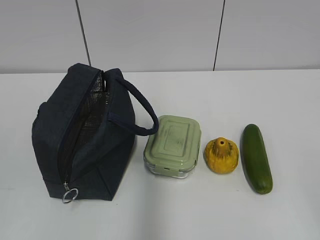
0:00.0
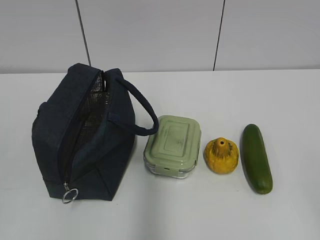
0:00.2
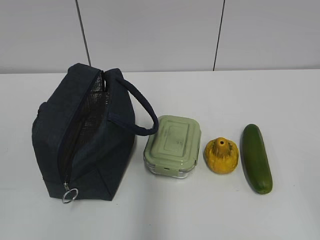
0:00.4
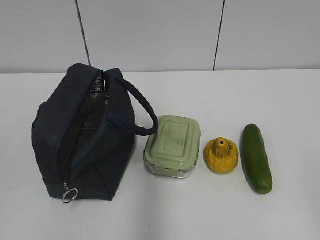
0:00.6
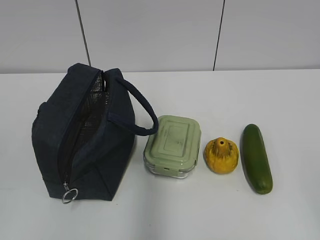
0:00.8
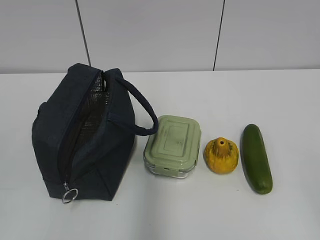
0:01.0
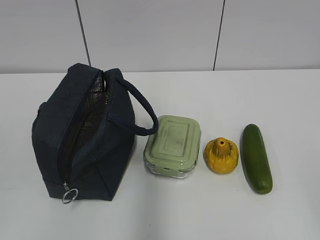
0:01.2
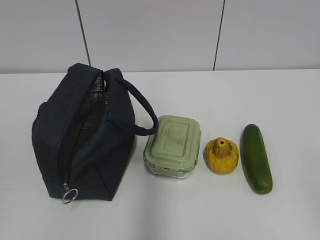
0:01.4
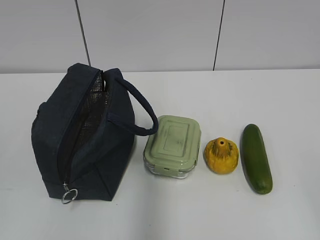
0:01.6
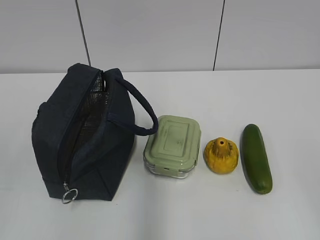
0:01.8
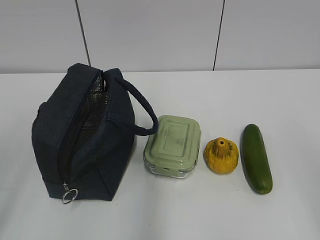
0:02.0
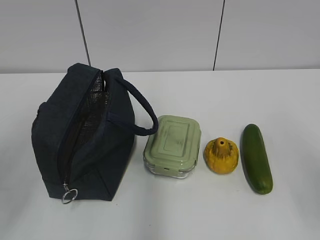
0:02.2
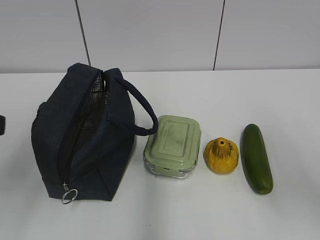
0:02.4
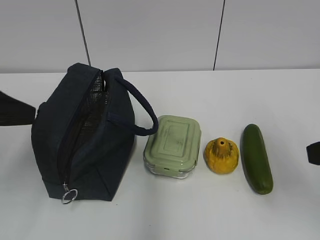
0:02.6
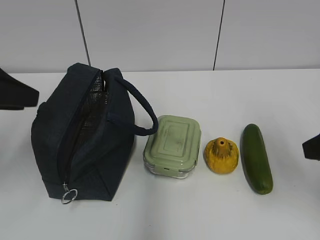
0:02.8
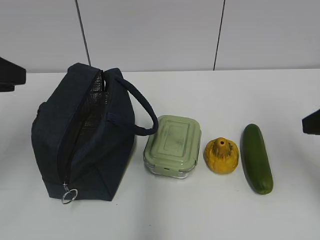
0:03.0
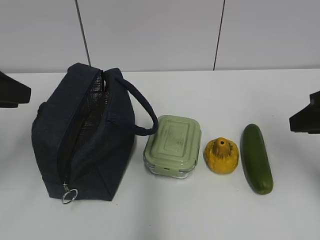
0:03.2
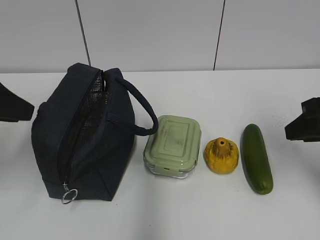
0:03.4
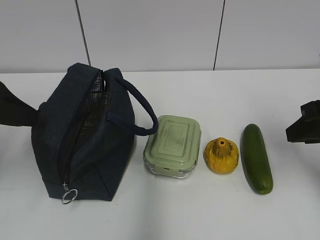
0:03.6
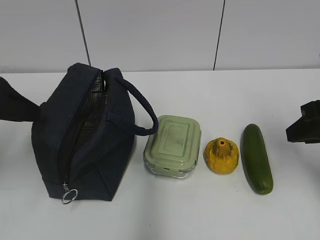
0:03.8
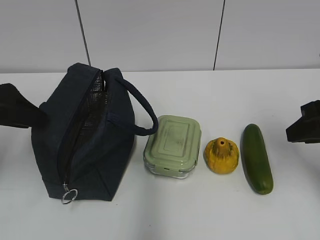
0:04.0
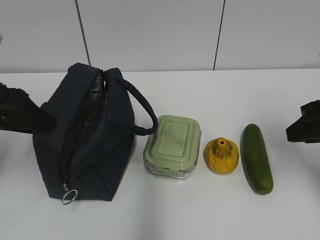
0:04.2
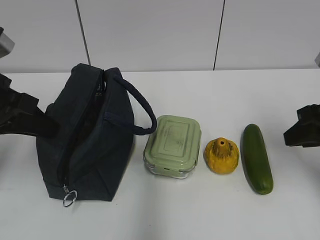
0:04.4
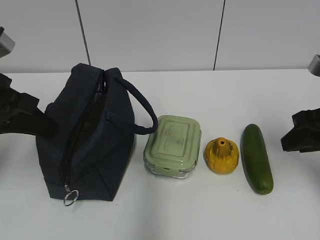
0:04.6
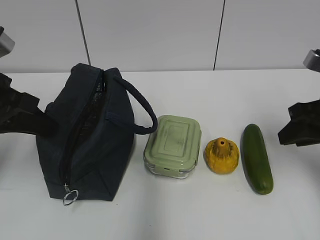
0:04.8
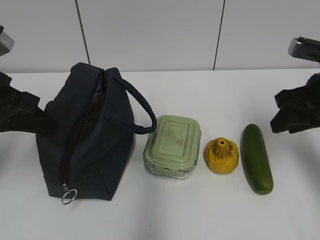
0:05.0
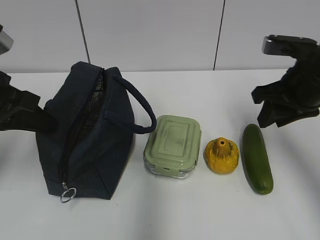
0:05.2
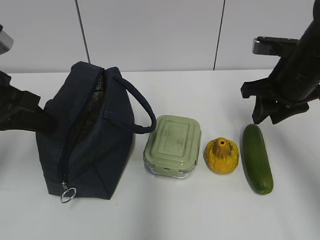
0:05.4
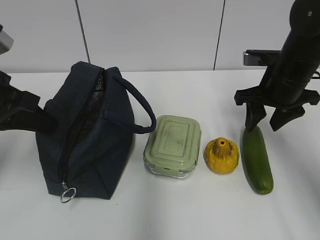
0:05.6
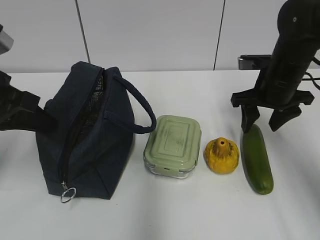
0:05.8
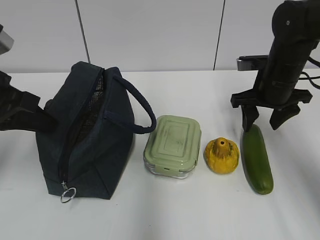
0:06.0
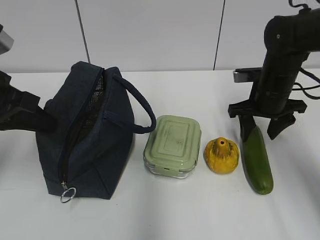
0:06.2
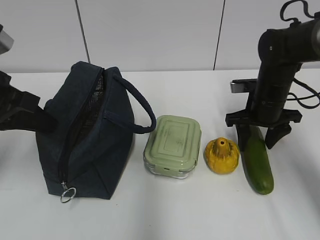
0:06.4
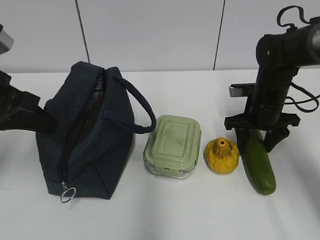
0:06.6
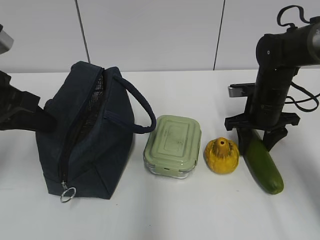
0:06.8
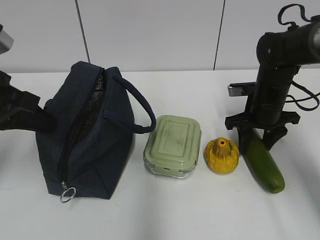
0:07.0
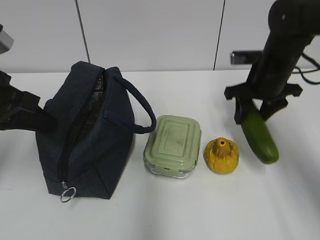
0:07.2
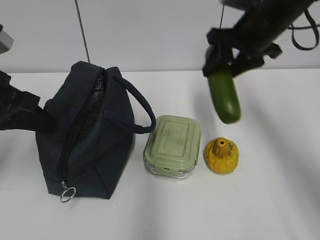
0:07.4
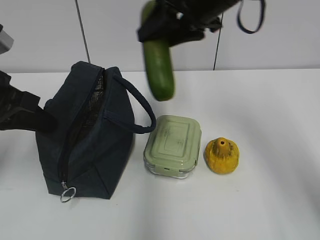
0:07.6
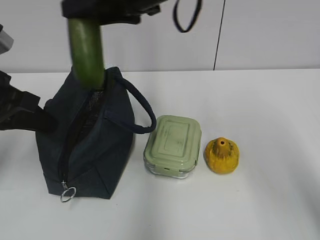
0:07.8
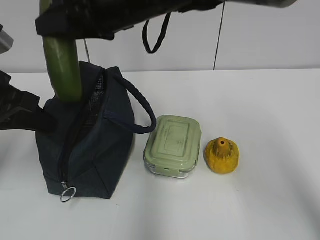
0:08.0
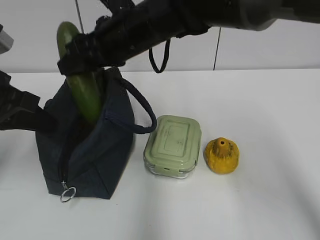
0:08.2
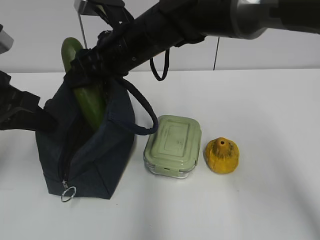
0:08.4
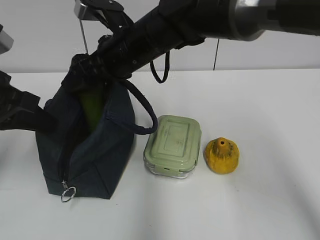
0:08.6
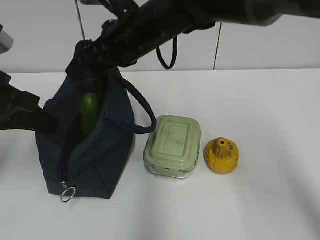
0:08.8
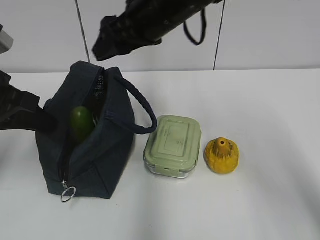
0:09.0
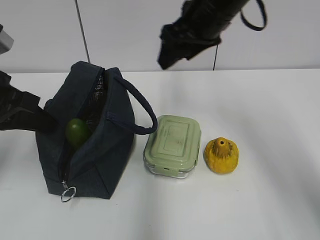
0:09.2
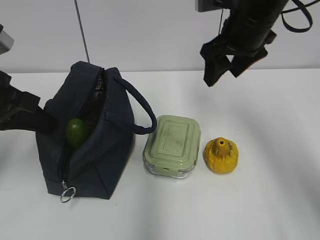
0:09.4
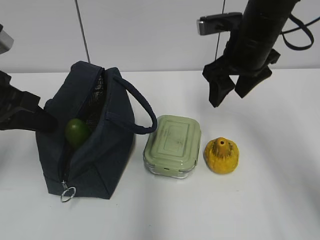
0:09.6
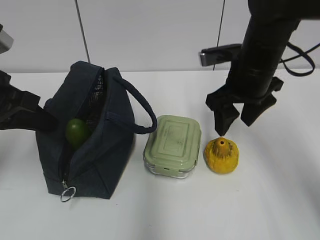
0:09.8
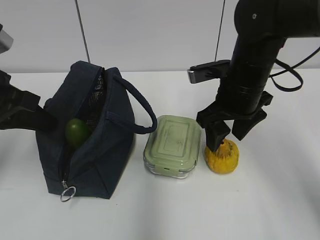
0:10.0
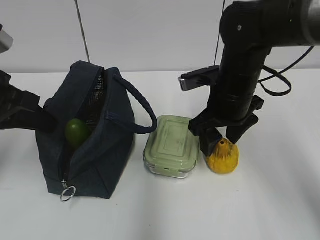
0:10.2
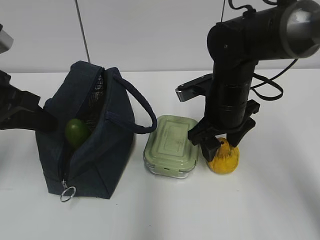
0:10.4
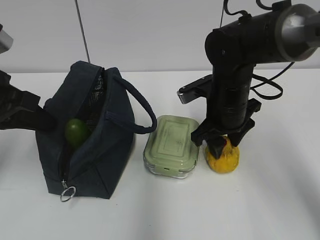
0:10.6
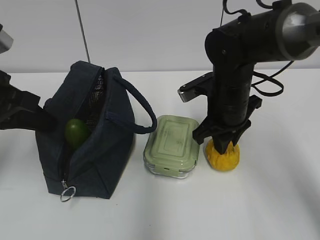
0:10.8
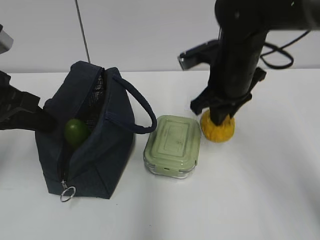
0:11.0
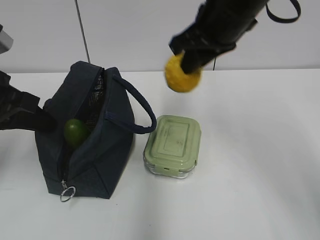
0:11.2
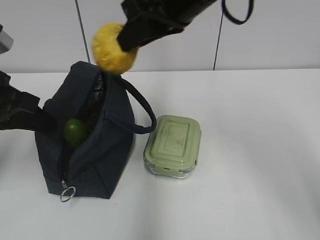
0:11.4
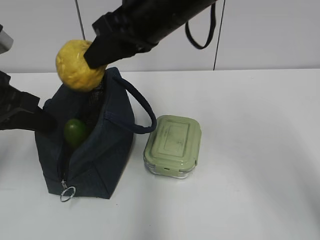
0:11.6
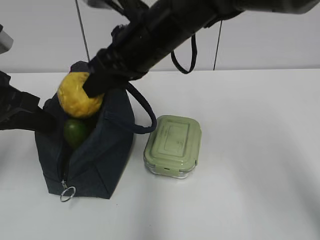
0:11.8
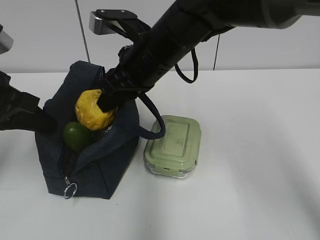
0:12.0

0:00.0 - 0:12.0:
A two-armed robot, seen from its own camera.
Step, 0:00.0 - 0:06.6: Grab the cucumber with your right hand.
Step, 0:08.2 - 0:08.8: Place it into the bag with your right hand.
Step, 0:09.0 - 0:10.6: Grab the pear with your right hand.
0:01.6 - 0:03.0: Both grippers move forward, approximately 25 cm.
0:03.0 - 0:04.4: The left gripper travels downward by some 5 cm, and closes, while the right gripper shifts by about 5 cm.
0:04.4 - 0:06.0: The right gripper is displaced forward by some 15 cm, and opens.
0:06.0 - 0:07.6: The right gripper travels upward and to the left by approximately 20 cm.
0:09.0 - 0:10.4: The right gripper moves downward and to the right, roughly 15 cm.
0:10.4 - 0:12.0: The right gripper moves to the left and upward, about 15 cm, and closes up.

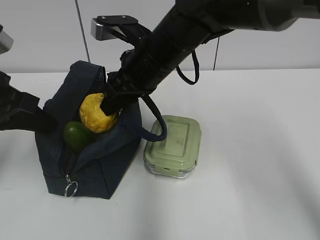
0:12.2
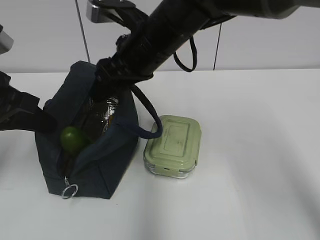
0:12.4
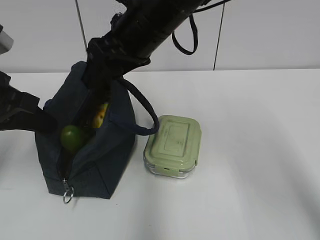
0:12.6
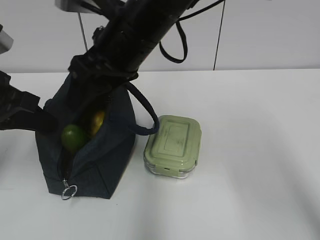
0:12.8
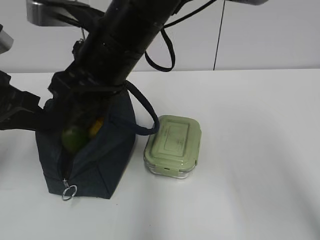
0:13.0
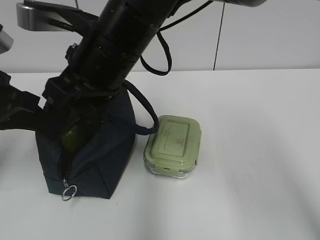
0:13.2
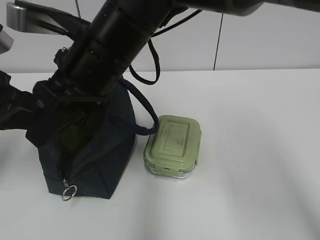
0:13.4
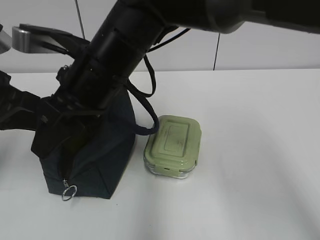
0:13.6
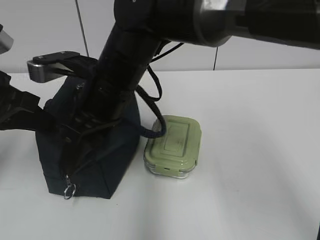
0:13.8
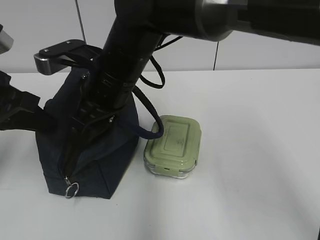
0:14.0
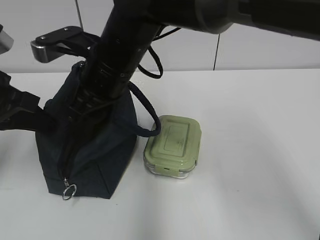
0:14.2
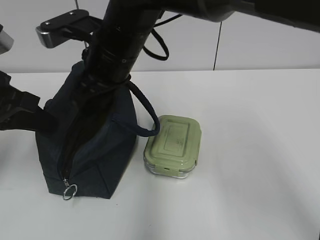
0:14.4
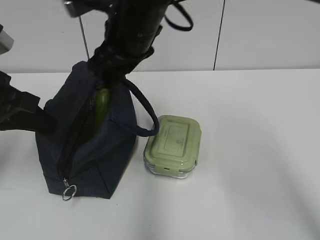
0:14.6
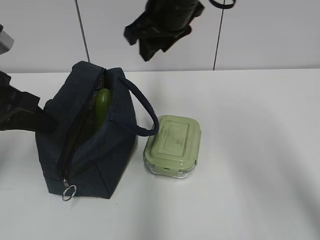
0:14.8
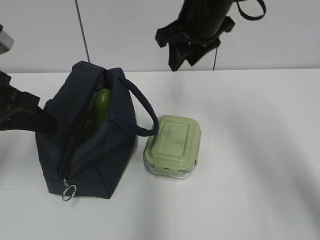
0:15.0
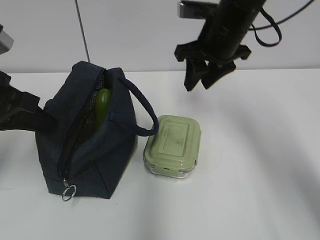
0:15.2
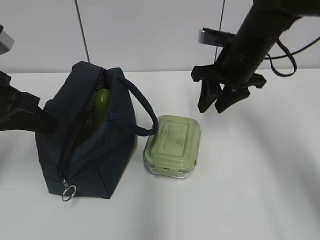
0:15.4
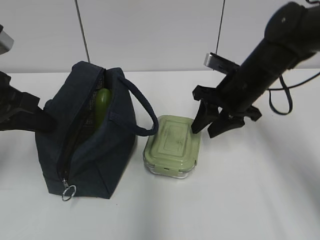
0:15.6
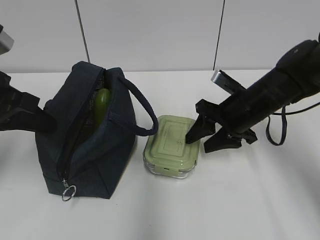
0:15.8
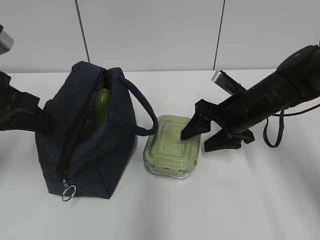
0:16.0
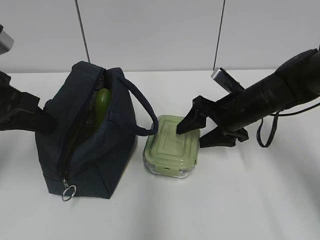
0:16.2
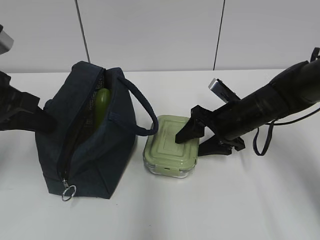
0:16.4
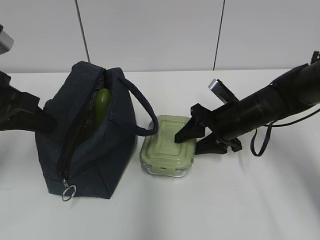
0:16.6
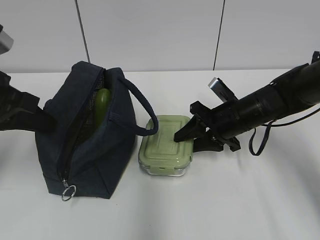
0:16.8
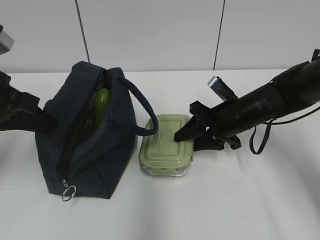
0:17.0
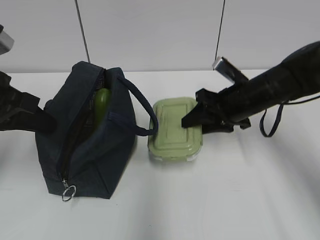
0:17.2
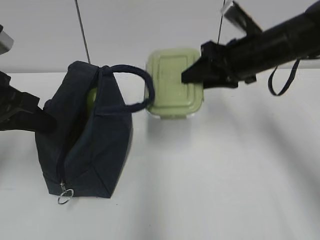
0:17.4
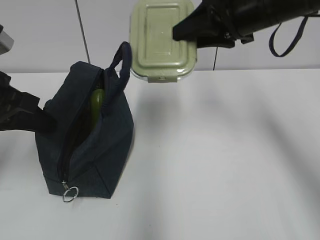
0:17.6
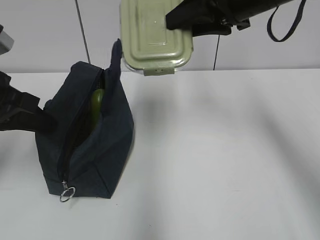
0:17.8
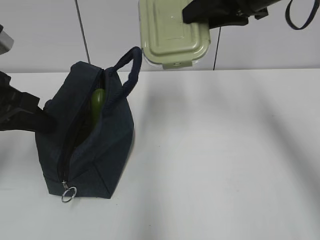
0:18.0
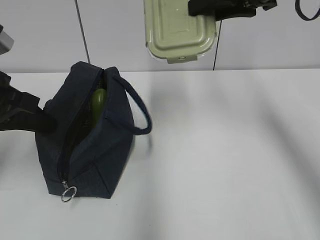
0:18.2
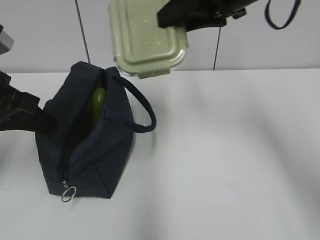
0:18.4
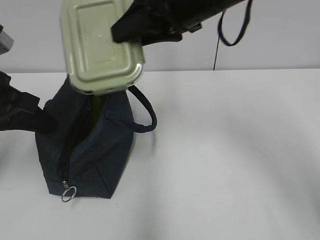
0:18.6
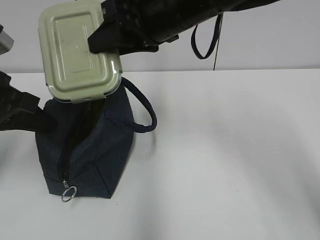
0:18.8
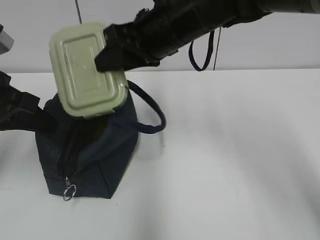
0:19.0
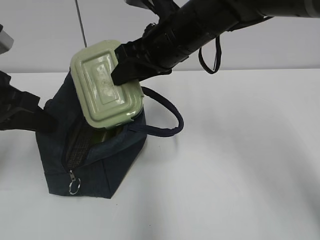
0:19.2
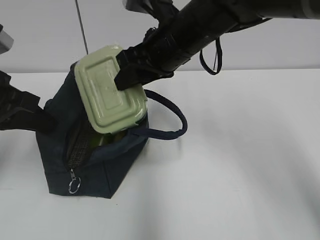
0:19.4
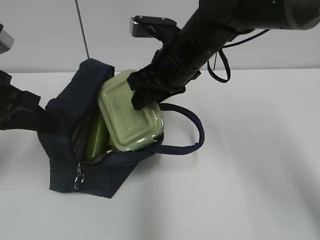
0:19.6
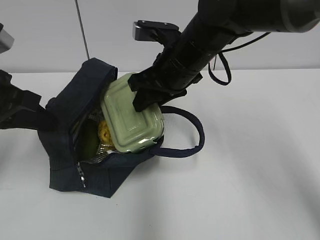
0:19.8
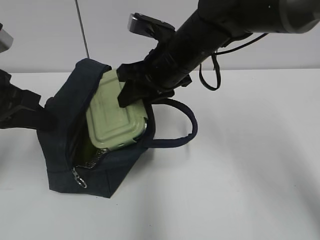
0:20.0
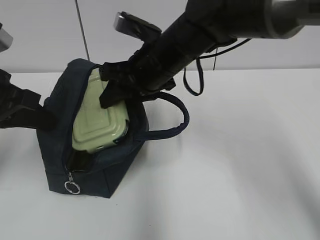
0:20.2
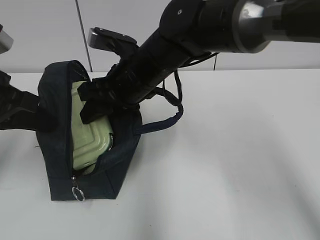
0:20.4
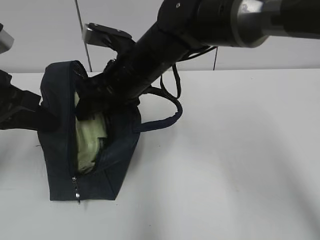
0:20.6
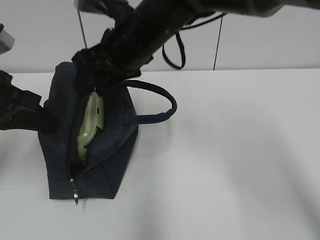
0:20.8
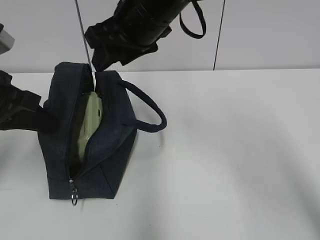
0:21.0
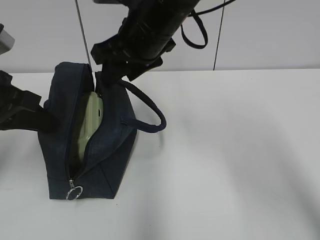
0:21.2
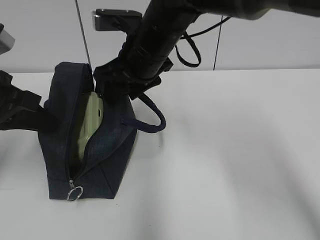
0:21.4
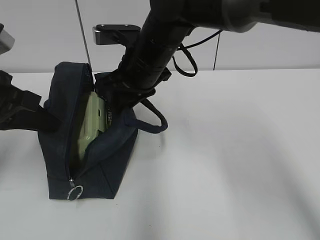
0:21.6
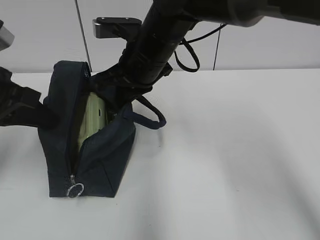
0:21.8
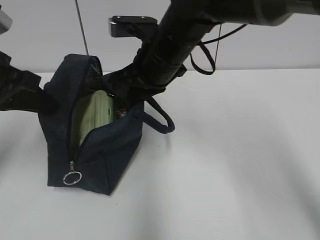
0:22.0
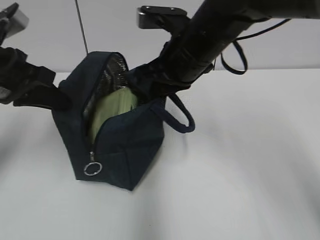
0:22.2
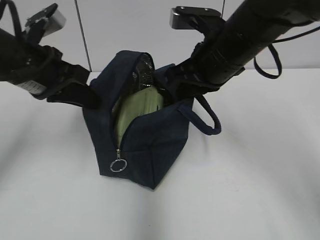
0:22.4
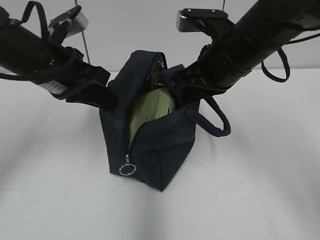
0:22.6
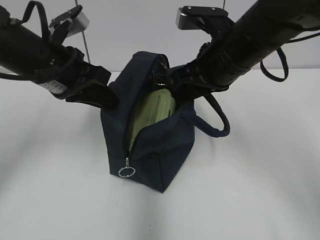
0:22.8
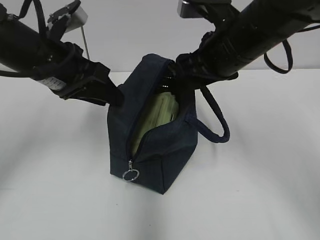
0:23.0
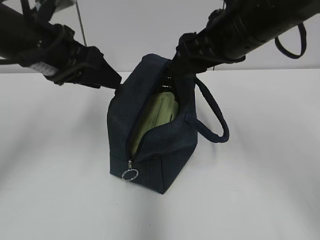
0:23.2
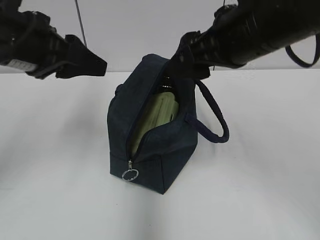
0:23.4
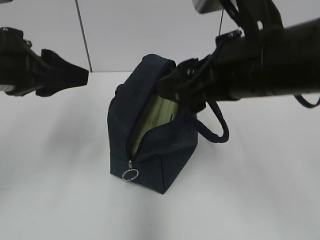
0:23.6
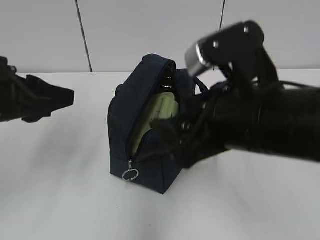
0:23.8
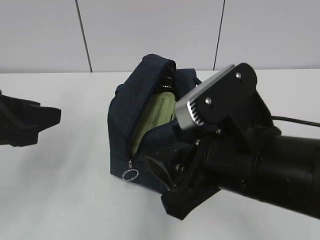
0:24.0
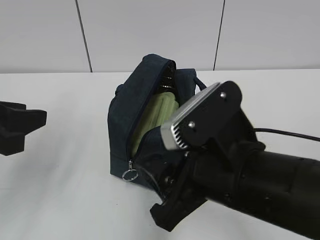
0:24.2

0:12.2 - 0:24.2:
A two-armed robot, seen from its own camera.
Step, 0:12.4 - 0:16.8: Grab the lunch box with your right hand.
Step, 0:20.8 - 0:21.8: Grab the lunch bag with your right hand.
Step, 0:22.0 - 0:23.0: Move the lunch bag to the right.
0:12.2 - 0:13.8: The right gripper goes roughly 5 cm to the left.
0:13.8 - 0:15.2: The right gripper shifts some 20 cm to the right and forward.
0:15.2 - 0:16.6: The right gripper is displaced downward by approximately 15 cm.
0:16.6 - 0:18.2: The right gripper goes some 25 cm upward.
0:18.2 - 0:19.8: The right gripper shifts some 15 cm downward and to the left.
0:19.8 - 0:21.2: The right gripper is displaced upward by roughly 5 cm.
0:21.2 - 0:22.6: The right gripper goes some 10 cm to the right, and closes its fingers. Meanwhile the left gripper travels to the right and forward by roughly 10 cm.
0:22.6 - 0:24.2: The right gripper heads backward, covering roughly 15 cm, and opens; the left gripper heads backward and to the left, covering roughly 15 cm, and opens.
